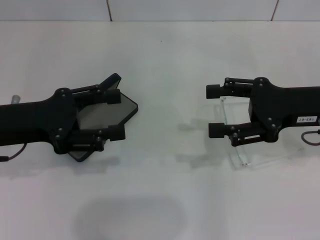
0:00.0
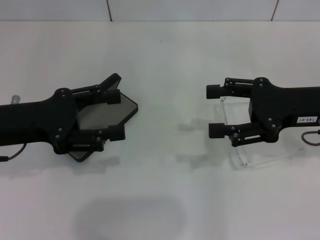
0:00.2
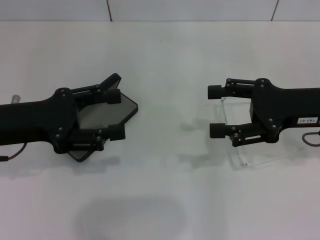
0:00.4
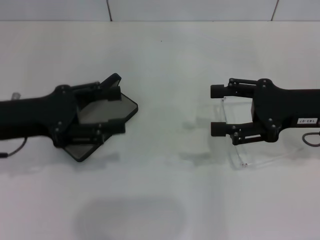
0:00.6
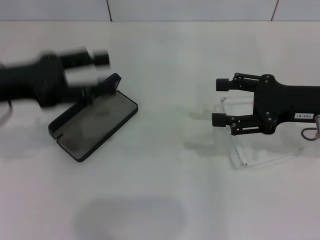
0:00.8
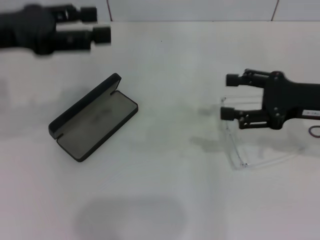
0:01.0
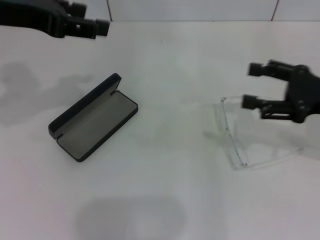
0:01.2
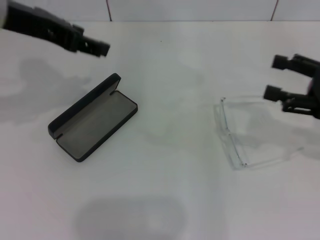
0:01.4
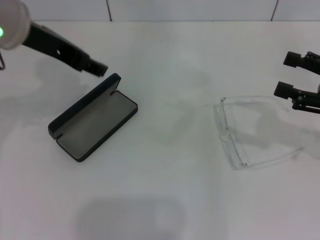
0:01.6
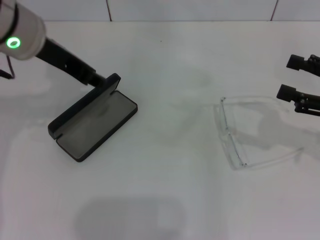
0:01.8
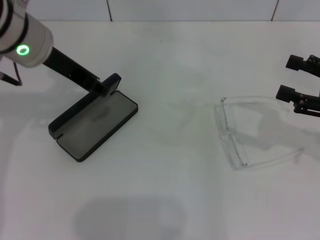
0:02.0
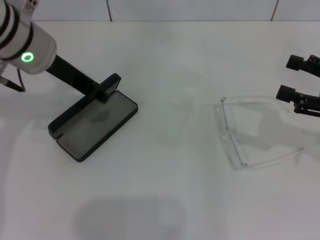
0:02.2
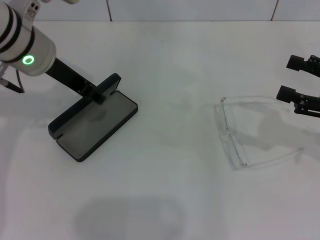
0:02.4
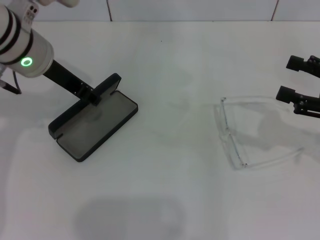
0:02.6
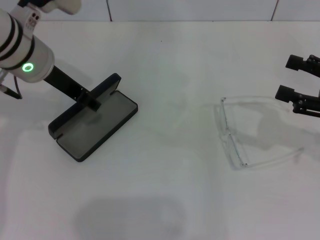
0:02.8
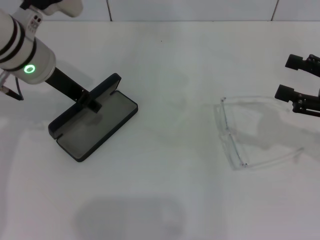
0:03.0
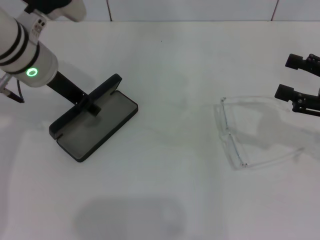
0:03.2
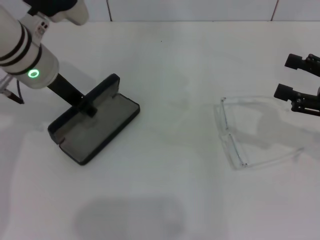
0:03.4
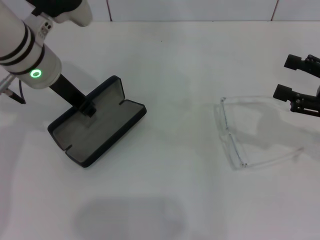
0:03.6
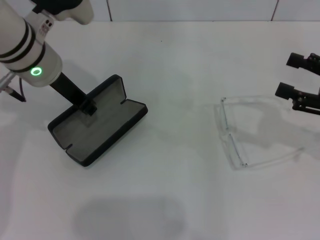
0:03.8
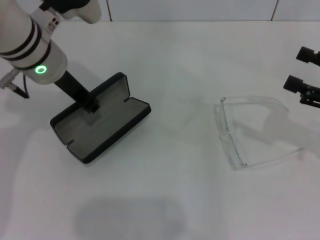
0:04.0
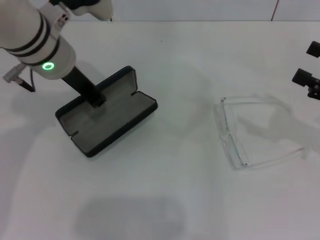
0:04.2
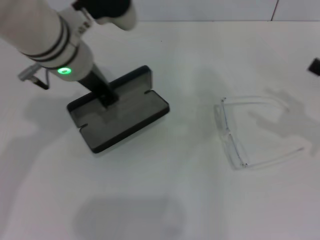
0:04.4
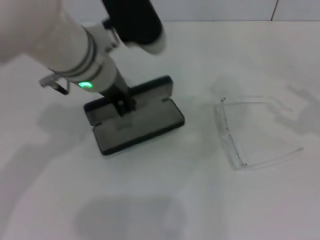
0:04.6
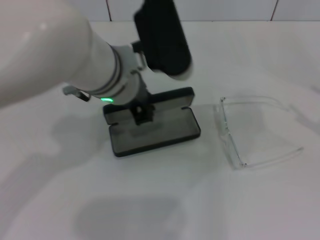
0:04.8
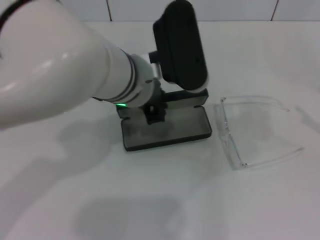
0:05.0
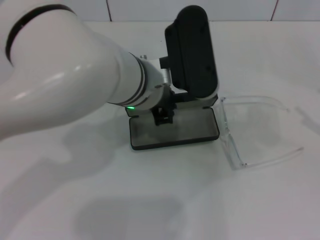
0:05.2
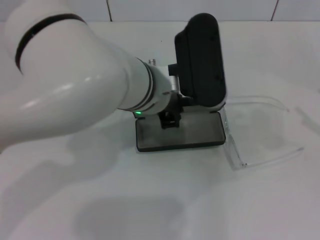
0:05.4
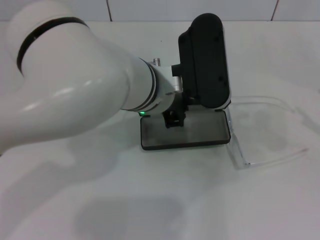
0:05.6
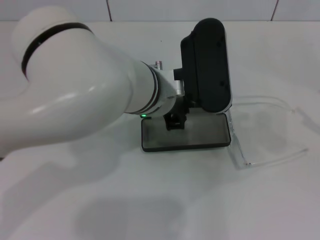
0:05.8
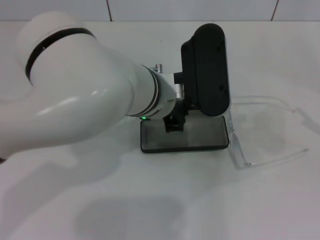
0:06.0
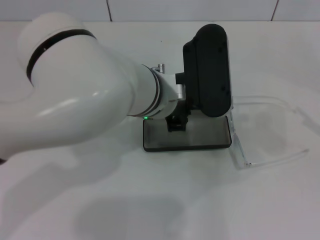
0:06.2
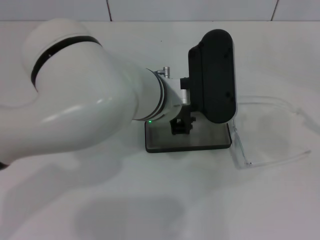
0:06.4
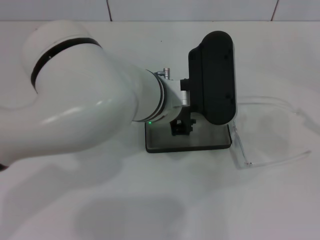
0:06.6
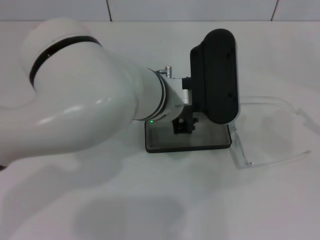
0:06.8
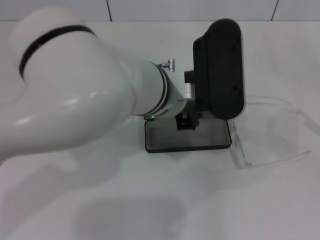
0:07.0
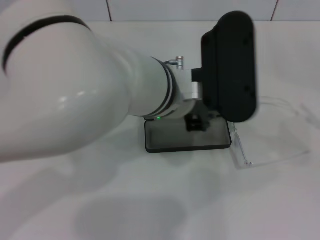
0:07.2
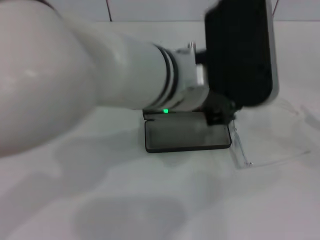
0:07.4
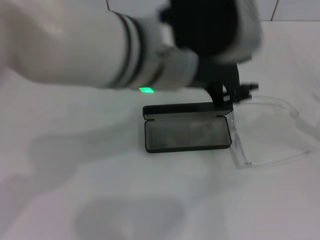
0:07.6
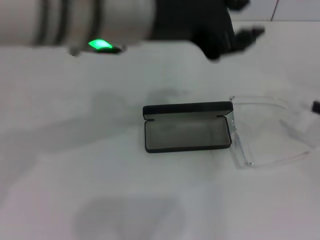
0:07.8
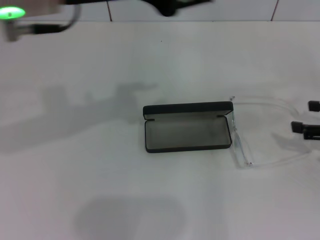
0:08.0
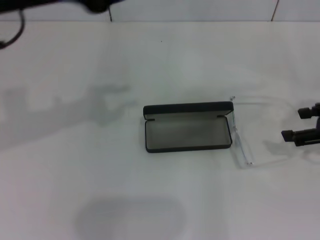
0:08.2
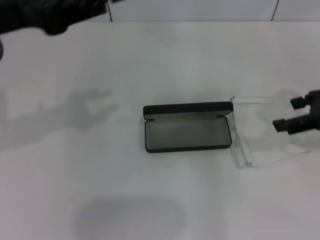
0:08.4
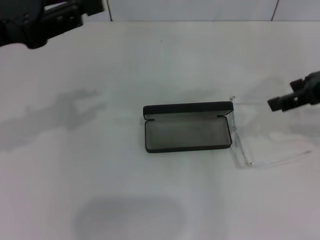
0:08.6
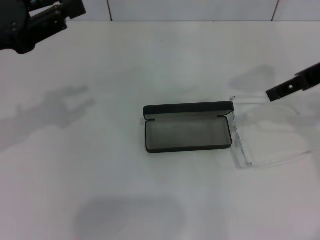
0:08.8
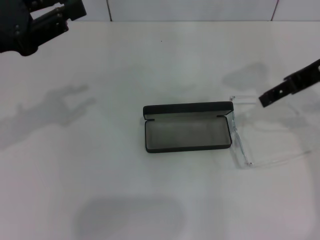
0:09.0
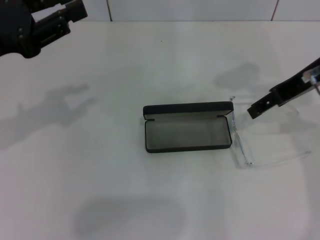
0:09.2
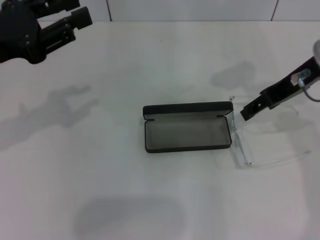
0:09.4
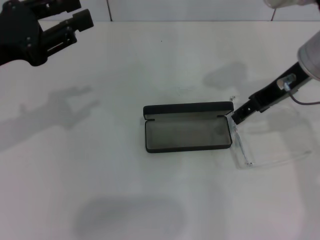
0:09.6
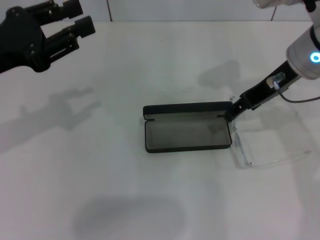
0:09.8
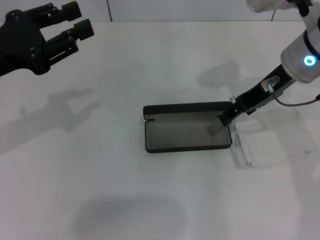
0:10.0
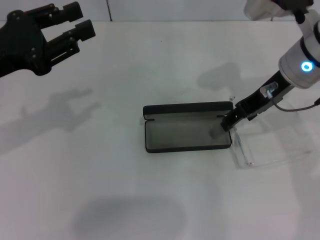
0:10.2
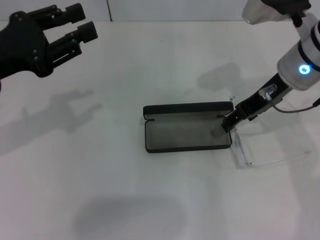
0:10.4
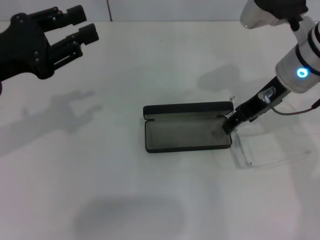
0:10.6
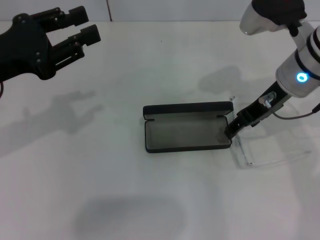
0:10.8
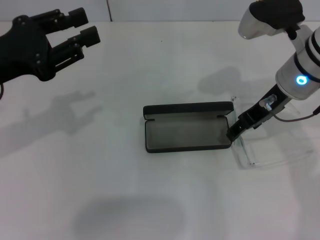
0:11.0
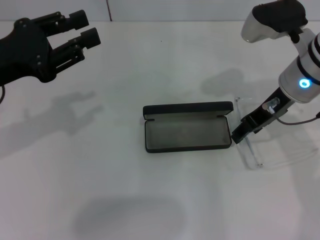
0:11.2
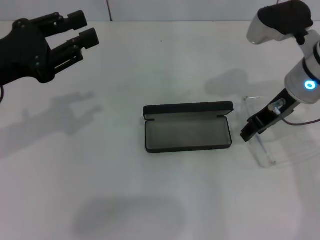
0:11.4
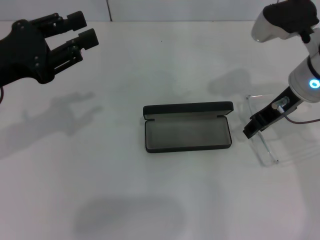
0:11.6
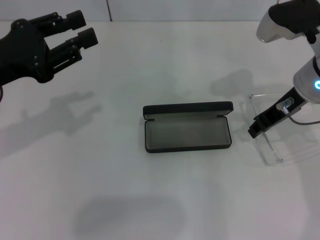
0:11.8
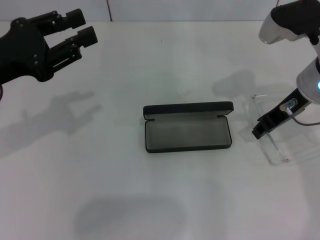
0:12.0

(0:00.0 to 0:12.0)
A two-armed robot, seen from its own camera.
Step, 0:00.0 - 0:03.6: Grab the glasses case with your left hand.
Step, 0:03.8 - 0:06.6: Place the glasses case in the center of the table with your left hand.
0:00.0 - 0:01.6: The right gripper goes approximately 10 cm to the right, while the left gripper shifts some 15 cm upward, to the right and forward.
0:01.6 - 0:03.0: The left gripper moves downward, roughly 5 cm.
0:03.0 - 0:04.4: The left gripper heads to the right, covering some 5 cm, and closes up.
0:04.4 - 0:06.0: The right gripper goes some 5 cm to the right and backward. The left gripper shifts approximately 10 cm to the right.
0:06.0 - 0:07.6: The left gripper is displaced upward by about 10 cm.
0:07.6 - 0:09.0: The left gripper travels to the left by approximately 25 cm. Meanwhile the right gripper heads to the left, upward and forward, covering some 25 cm.
0:09.0 - 0:10.4: The right gripper goes about 10 cm downward and to the left.
0:10.4 - 0:12.0: The right gripper closes.

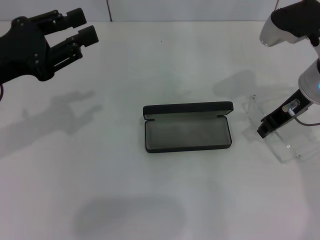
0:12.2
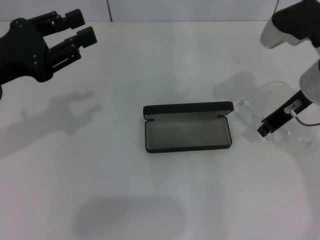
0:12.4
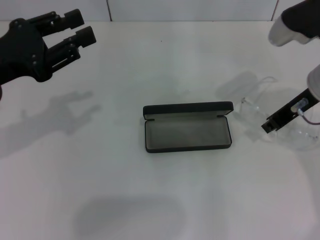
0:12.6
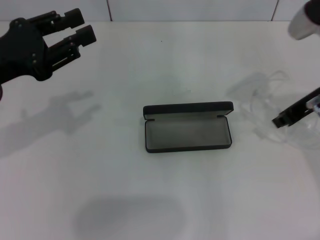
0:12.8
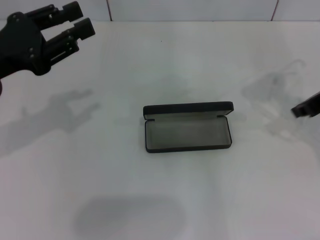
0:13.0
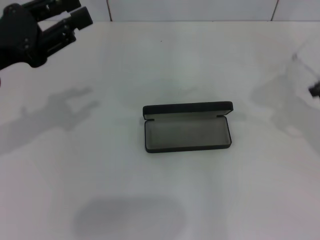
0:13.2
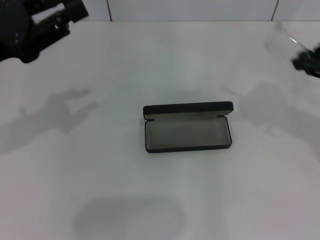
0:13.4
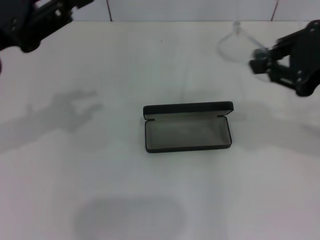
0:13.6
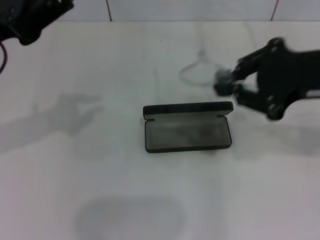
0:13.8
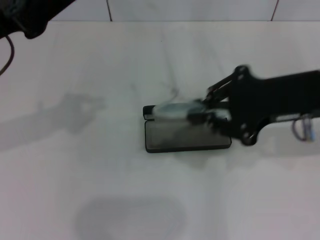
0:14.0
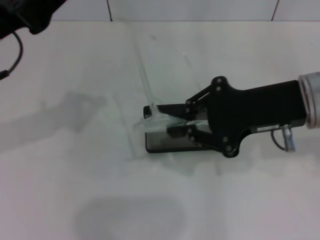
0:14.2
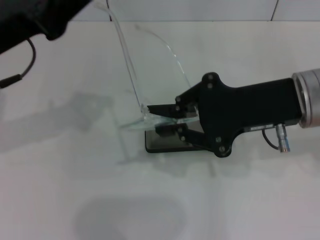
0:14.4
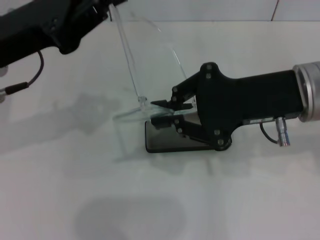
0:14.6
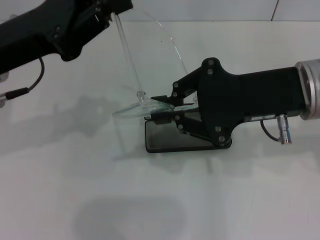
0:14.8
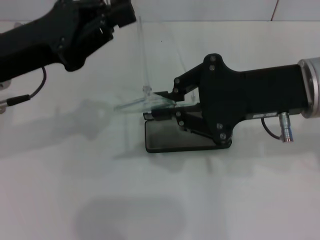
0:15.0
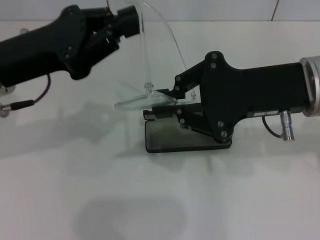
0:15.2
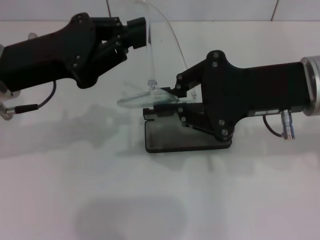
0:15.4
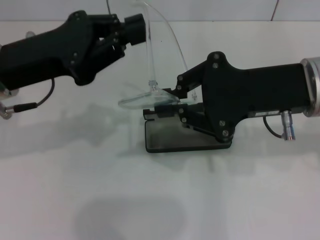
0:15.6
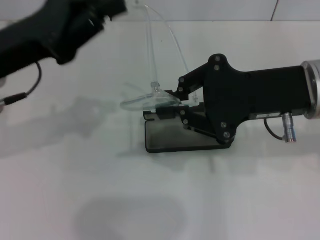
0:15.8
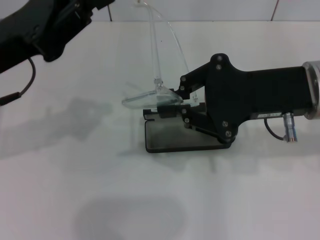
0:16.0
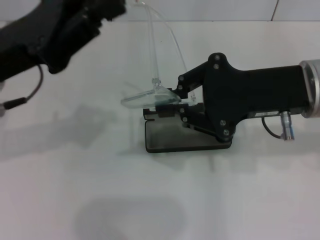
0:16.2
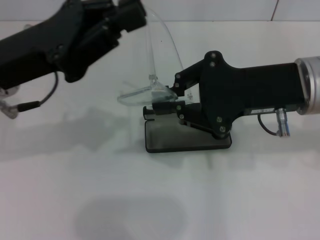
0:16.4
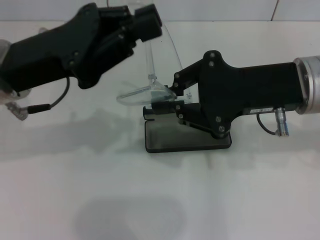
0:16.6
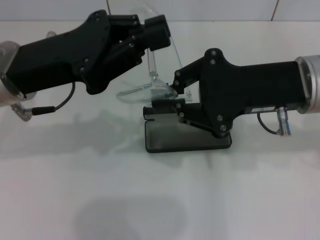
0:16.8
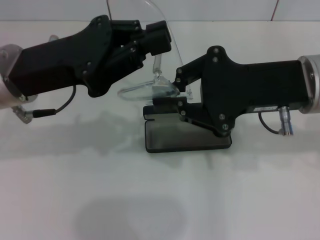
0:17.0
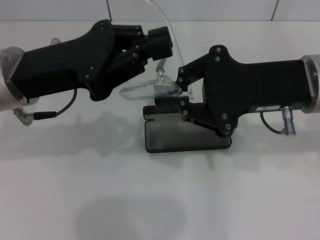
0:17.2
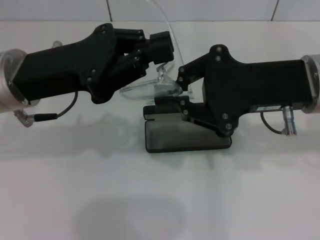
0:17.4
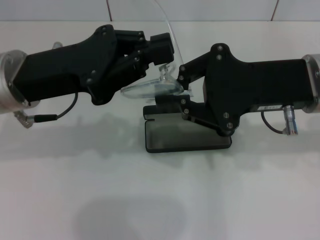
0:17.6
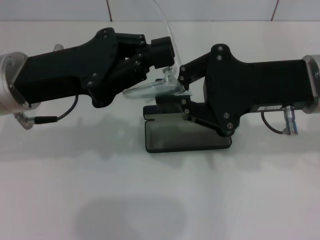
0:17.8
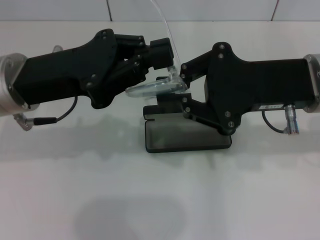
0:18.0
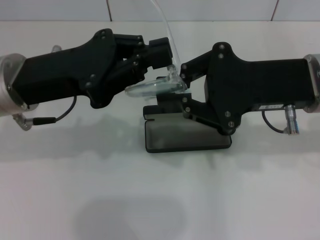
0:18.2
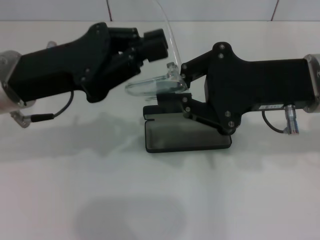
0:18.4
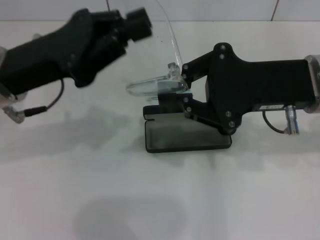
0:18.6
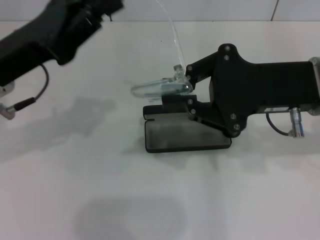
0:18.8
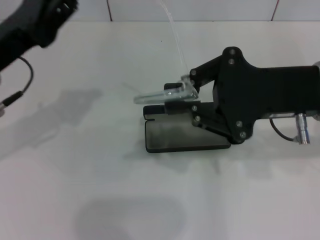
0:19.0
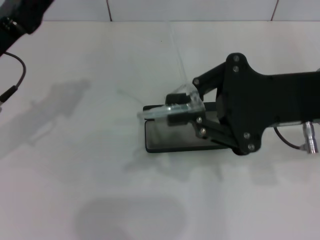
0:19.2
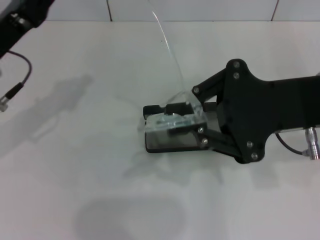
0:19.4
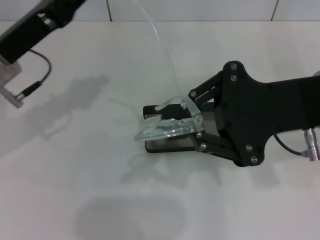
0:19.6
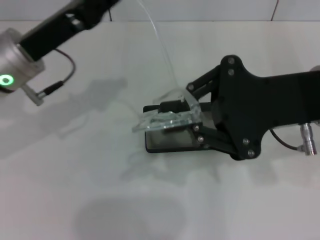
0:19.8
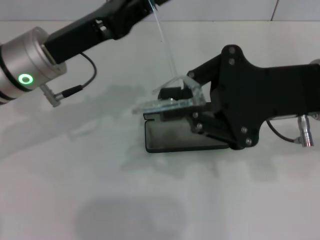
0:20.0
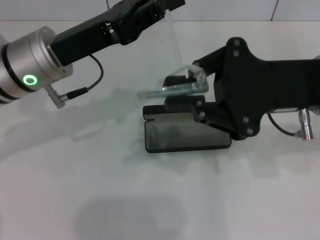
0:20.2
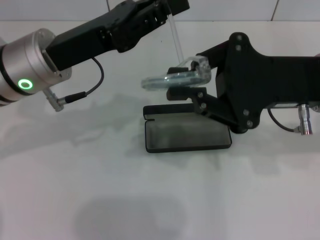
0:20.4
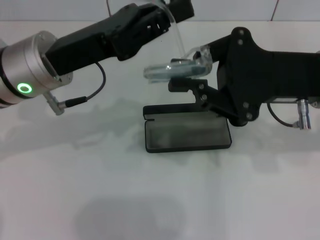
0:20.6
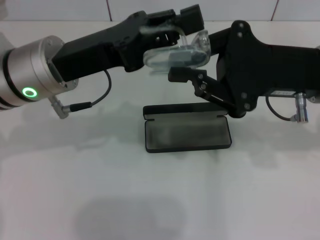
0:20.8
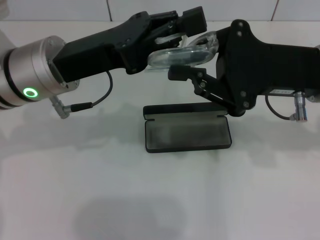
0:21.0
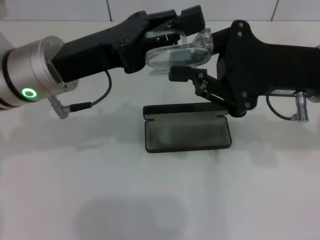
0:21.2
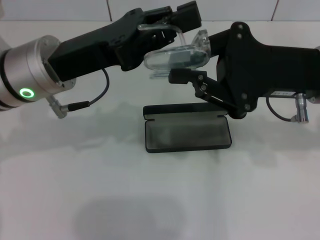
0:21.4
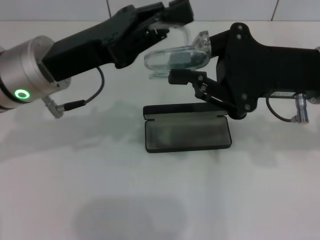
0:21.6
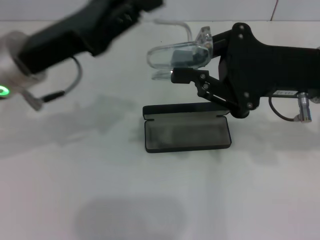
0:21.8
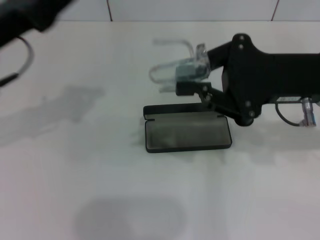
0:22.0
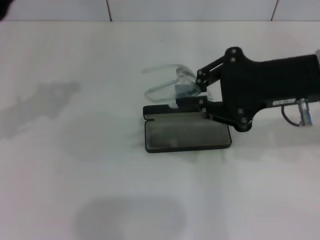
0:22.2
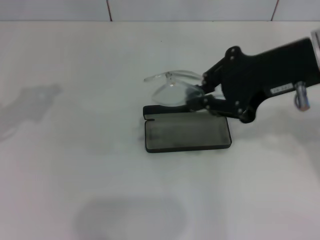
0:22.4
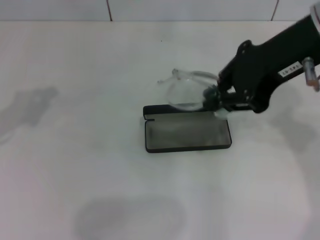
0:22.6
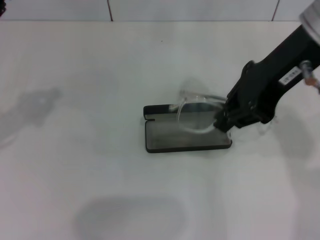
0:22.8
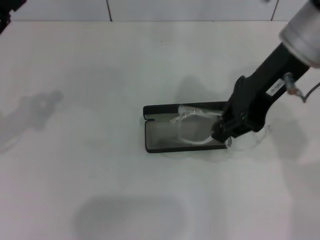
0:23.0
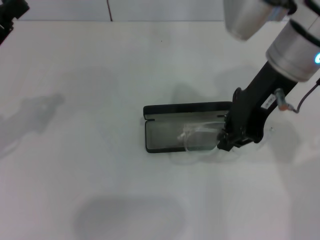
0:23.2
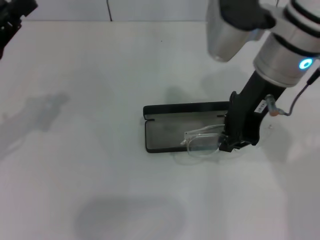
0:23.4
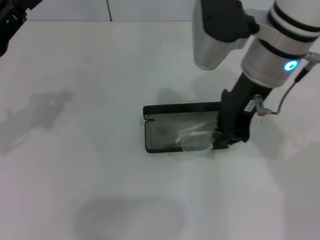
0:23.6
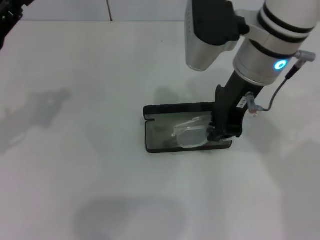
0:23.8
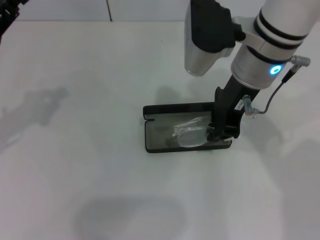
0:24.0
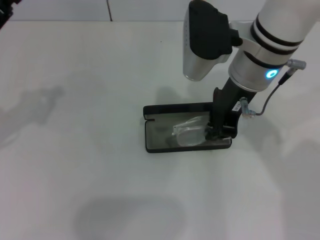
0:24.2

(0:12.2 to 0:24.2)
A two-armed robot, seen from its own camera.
Step, 0:12.6 - 0:20.8: Fold the frame with your left hand.
0:12.2 - 0:13.8: The right gripper heads backward and upward, covering approximately 10 cm.
0:13.8 - 0:15.2: The left gripper closes its fingers. Meanwhile the right gripper changes place by approximately 5 cm.
0:15.2 - 0:16.6: The grippers move only a little.
0:21.2 - 0:22.6: The left gripper is displaced to the left by some 15 cm; the right gripper travels upward by approximately 10 cm.
0:22.6 - 0:24.2: The right gripper travels downward, to the left and forward by roughly 15 cm.
